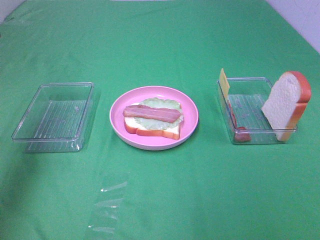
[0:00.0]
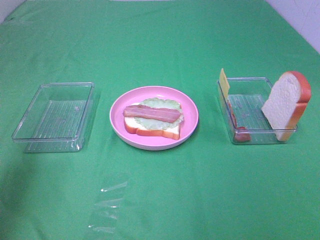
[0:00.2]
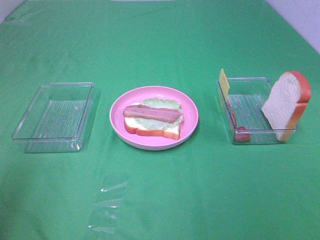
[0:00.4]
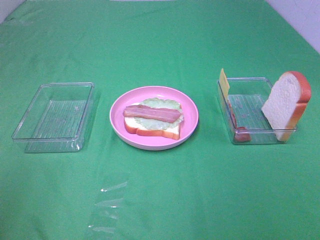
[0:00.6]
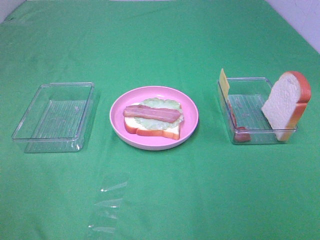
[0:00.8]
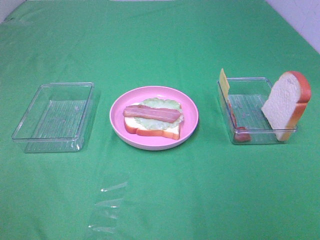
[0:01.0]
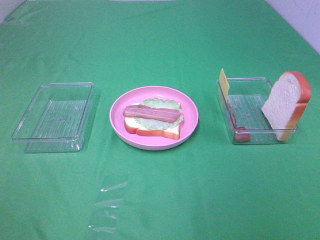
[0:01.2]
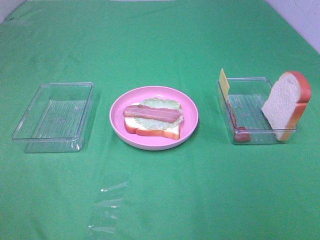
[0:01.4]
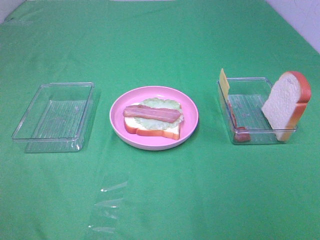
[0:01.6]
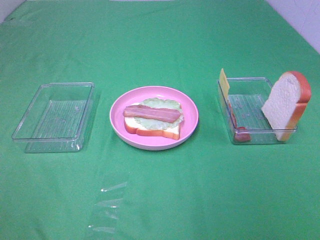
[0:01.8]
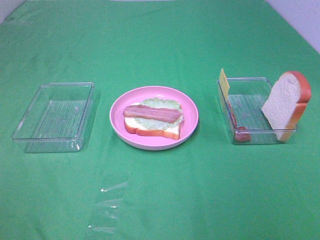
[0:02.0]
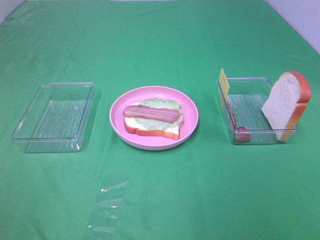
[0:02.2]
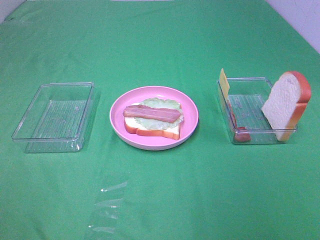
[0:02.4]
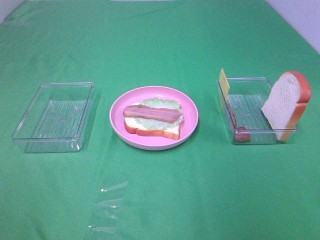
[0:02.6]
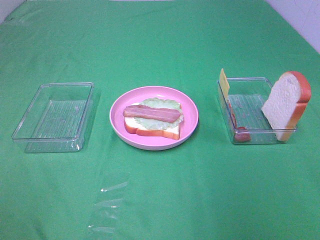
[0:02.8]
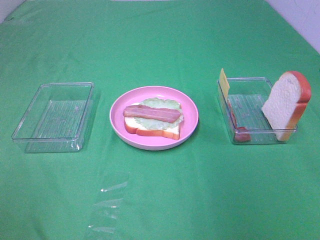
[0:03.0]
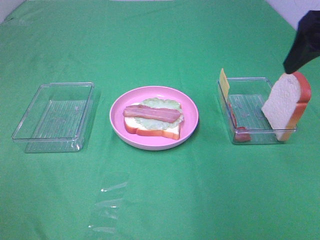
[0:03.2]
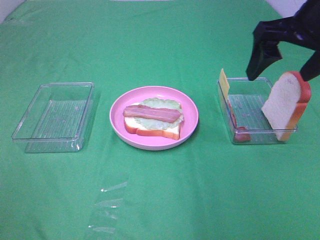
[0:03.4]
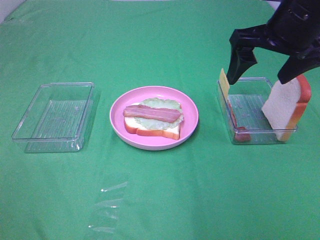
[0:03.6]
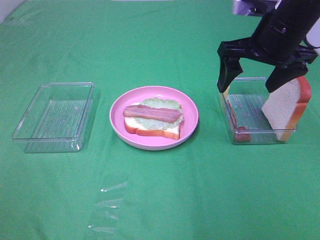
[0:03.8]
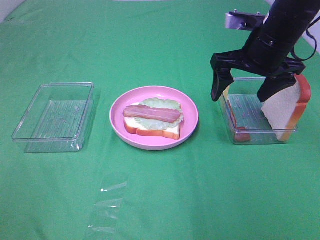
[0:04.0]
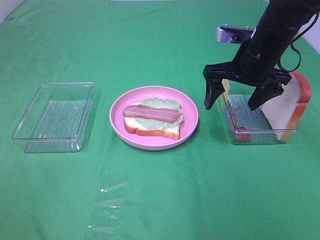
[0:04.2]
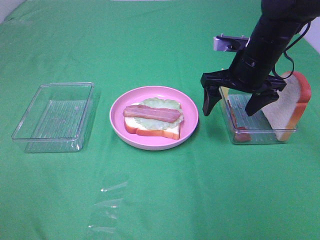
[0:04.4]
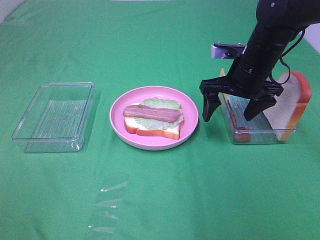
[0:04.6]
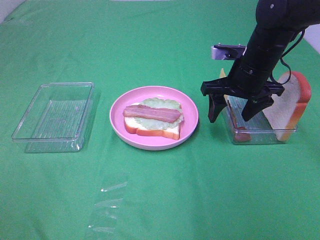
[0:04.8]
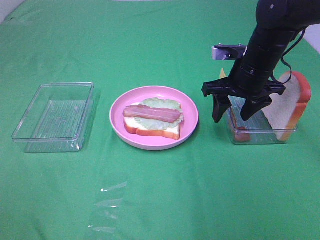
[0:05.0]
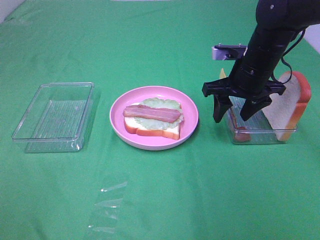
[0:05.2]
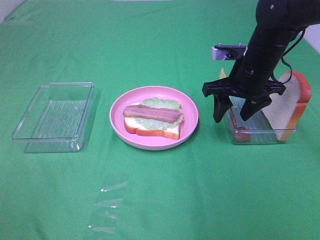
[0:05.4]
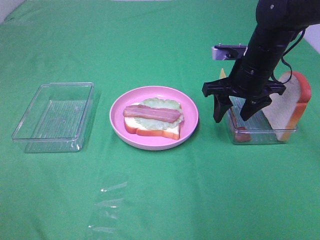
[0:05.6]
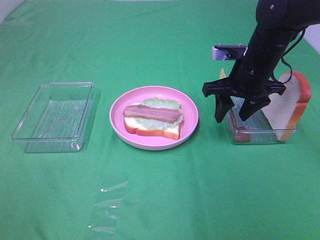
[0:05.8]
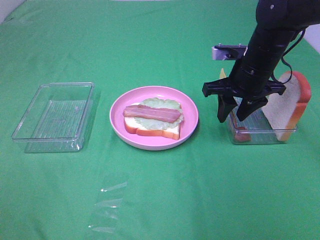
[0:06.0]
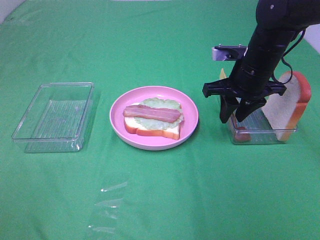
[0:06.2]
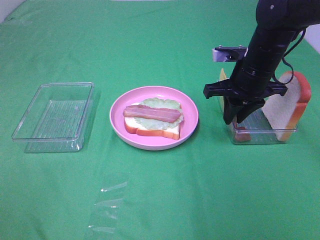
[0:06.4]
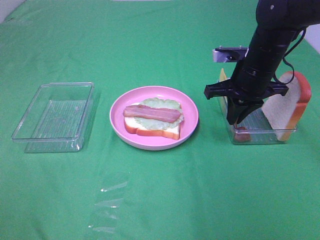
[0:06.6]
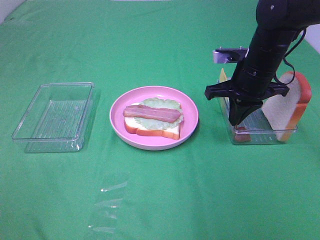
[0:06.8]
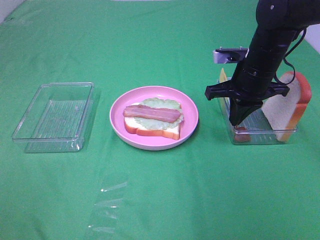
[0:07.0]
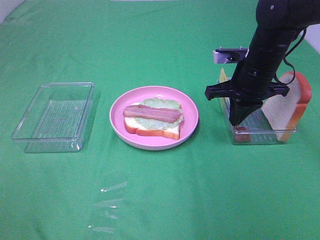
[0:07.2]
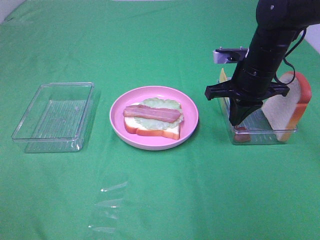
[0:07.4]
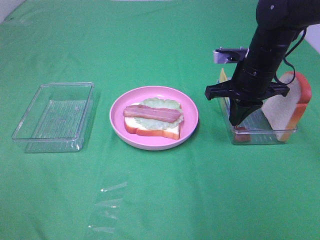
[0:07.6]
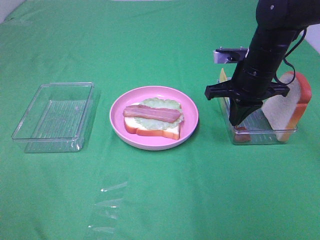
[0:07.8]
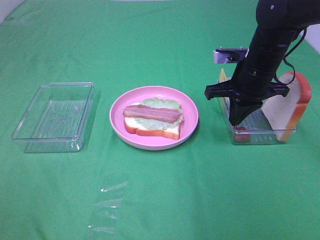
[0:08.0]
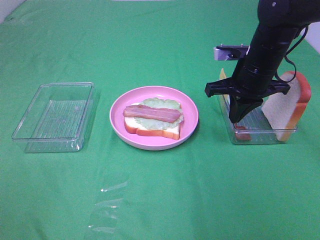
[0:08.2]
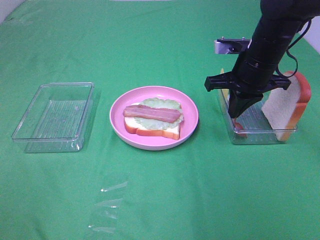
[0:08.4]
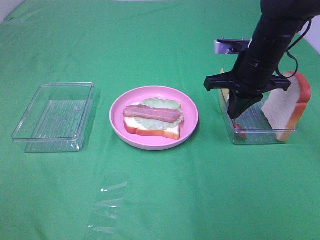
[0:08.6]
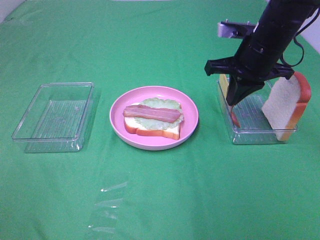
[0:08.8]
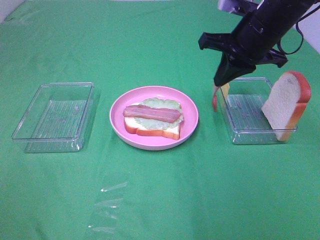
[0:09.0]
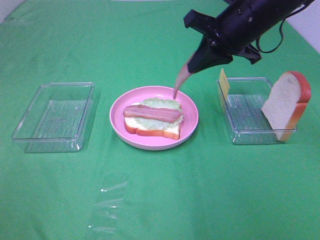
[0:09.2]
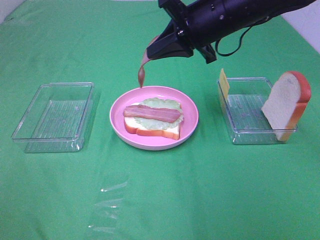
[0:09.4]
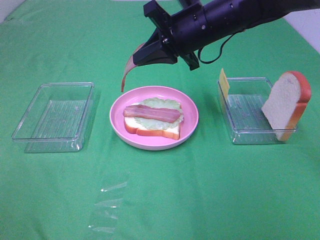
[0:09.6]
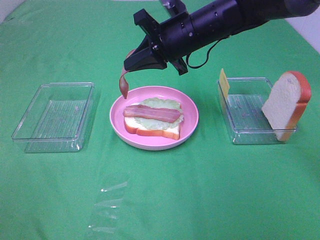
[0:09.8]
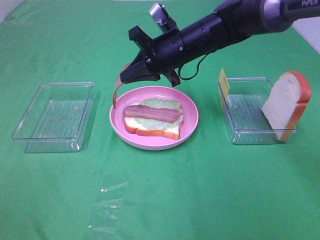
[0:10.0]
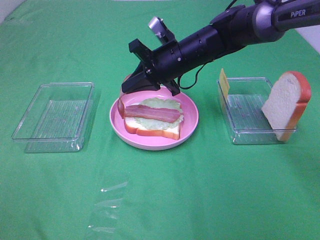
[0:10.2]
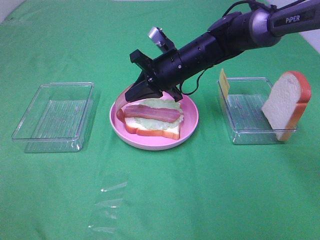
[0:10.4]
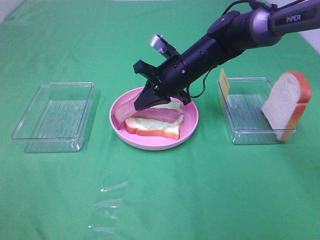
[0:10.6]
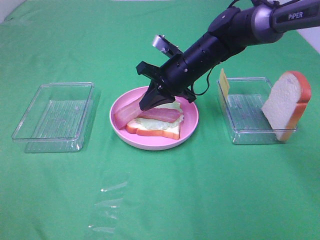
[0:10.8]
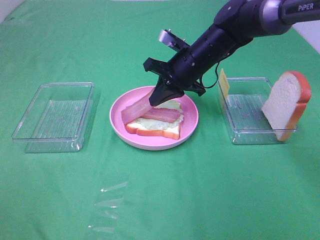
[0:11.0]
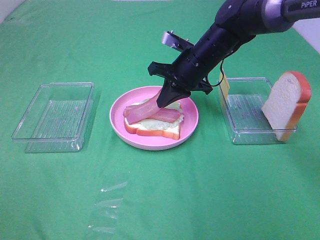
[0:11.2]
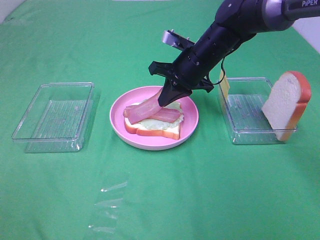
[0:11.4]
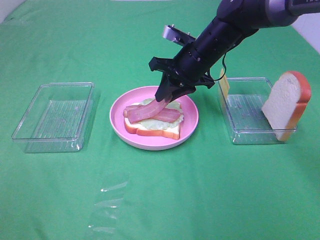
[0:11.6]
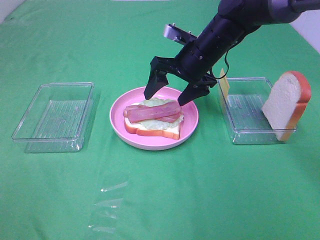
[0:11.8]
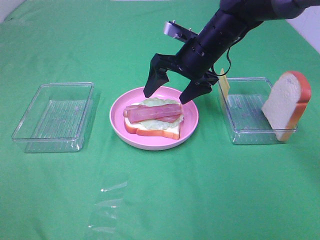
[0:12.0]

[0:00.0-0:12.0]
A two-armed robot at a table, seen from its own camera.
Task of the whole recording: Make sandwiches.
Step, 0:00.0 to 0:07.0: Right hand:grab the bacon.
Step, 0:07.2 to 0:12.0: Right hand:place bacon on bacon.
0:00.0 to 0:01.6: The left gripper travels backward by some 30 cm.
0:03.0 to 0:04.4: The right gripper travels downward, forward and to the left by some 25 cm.
0:04.4 to 0:06.0: The right gripper closes.
0:06.0 to 0:07.6: The right gripper closes up.
0:07.6 to 0:09.0: The right gripper travels upward by about 10 cm.
0:09.0 to 0:10.4: The right gripper moves downward, to the left and forward, roughly 15 cm.
0:10.4 to 0:12.0: The right gripper moves roughly 5 cm, and opens up.

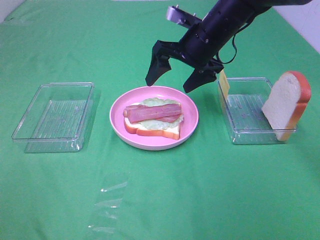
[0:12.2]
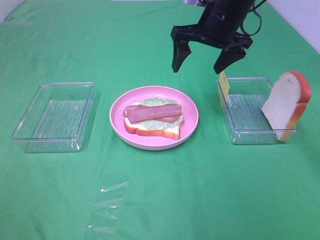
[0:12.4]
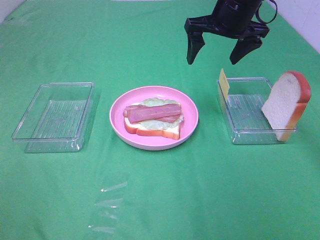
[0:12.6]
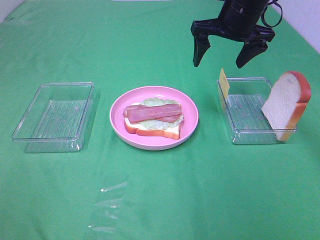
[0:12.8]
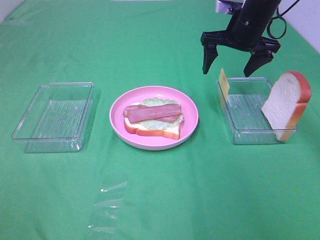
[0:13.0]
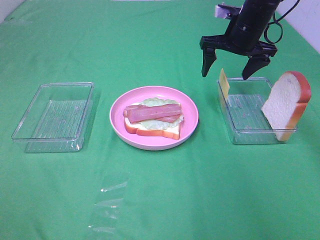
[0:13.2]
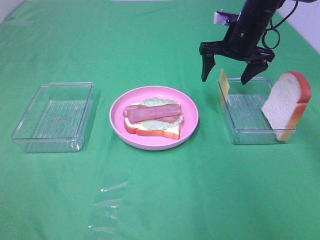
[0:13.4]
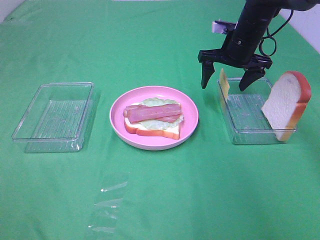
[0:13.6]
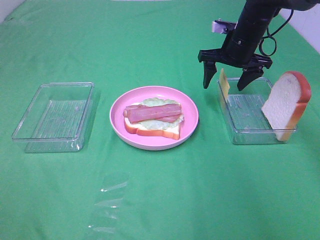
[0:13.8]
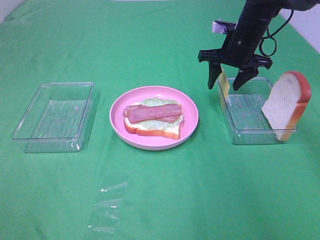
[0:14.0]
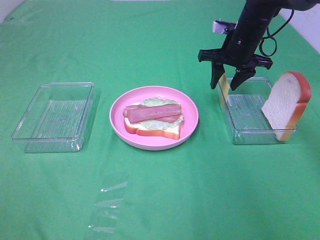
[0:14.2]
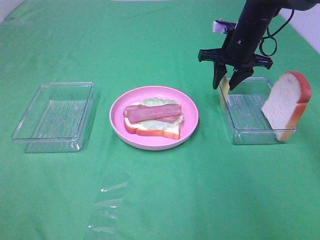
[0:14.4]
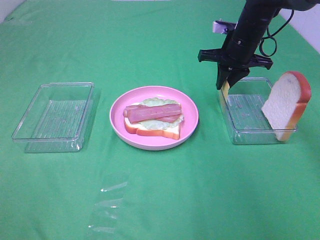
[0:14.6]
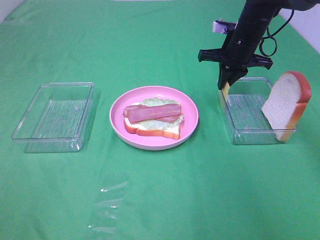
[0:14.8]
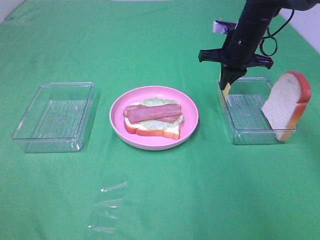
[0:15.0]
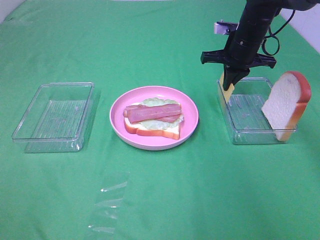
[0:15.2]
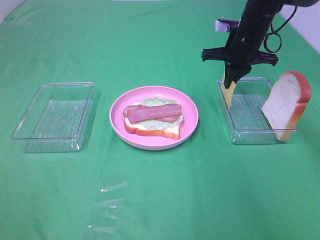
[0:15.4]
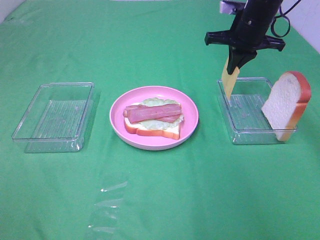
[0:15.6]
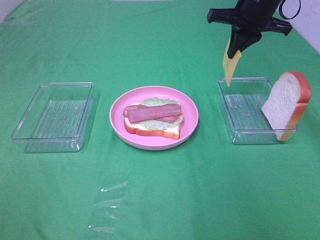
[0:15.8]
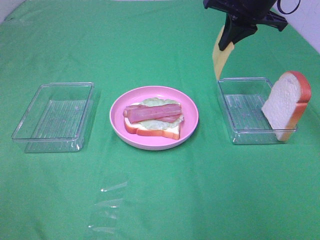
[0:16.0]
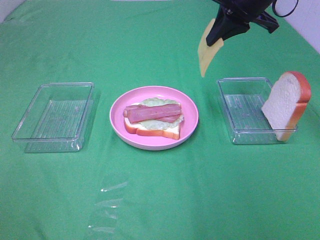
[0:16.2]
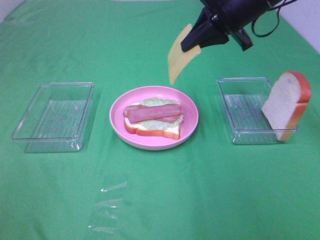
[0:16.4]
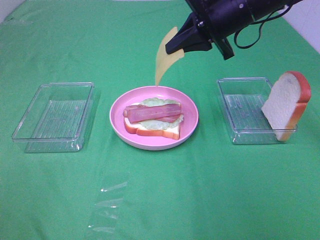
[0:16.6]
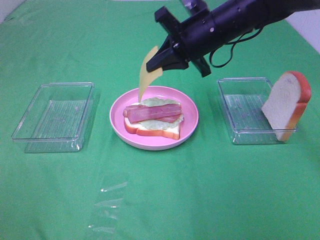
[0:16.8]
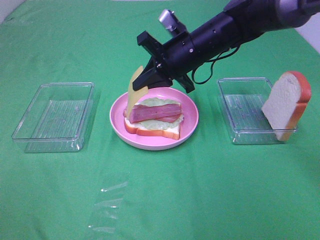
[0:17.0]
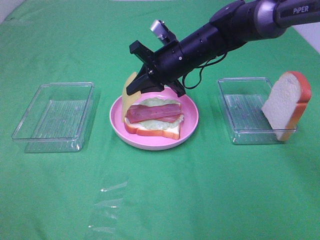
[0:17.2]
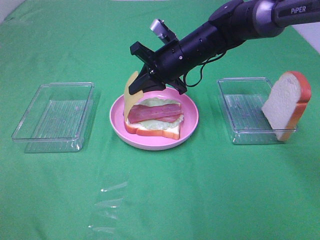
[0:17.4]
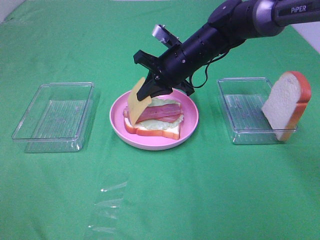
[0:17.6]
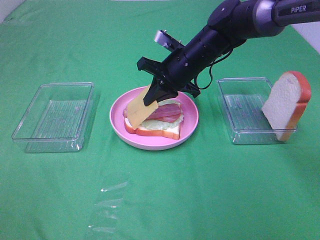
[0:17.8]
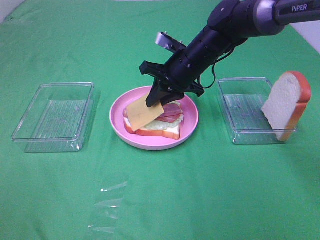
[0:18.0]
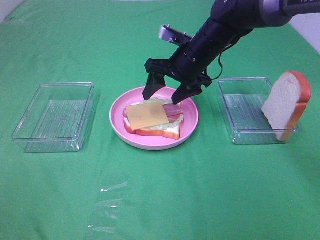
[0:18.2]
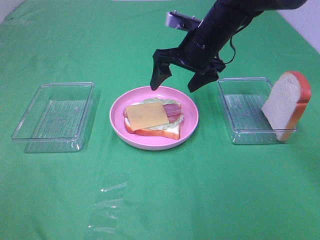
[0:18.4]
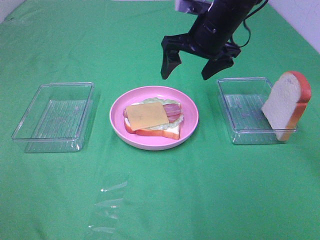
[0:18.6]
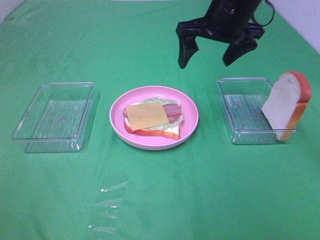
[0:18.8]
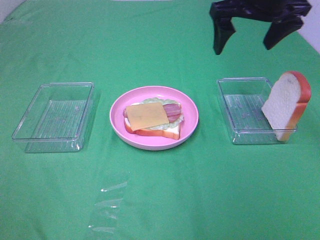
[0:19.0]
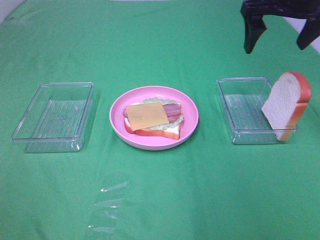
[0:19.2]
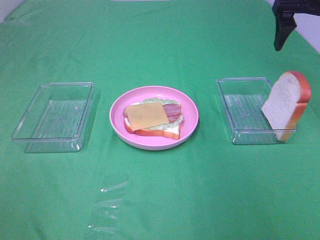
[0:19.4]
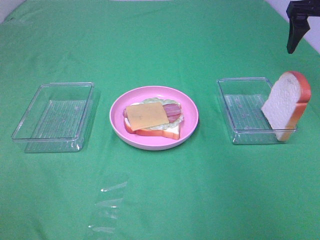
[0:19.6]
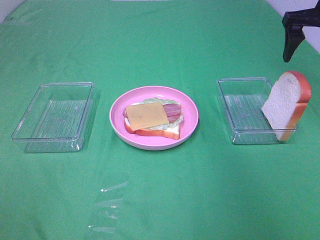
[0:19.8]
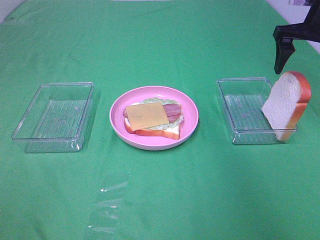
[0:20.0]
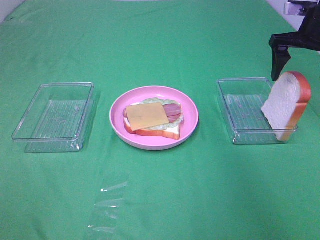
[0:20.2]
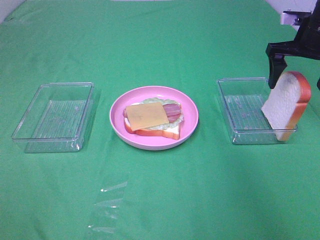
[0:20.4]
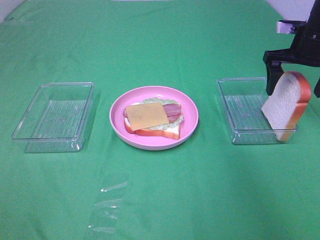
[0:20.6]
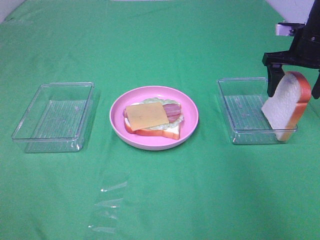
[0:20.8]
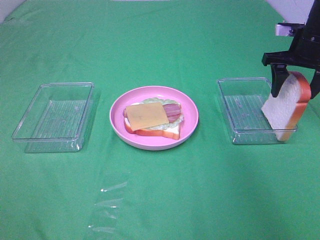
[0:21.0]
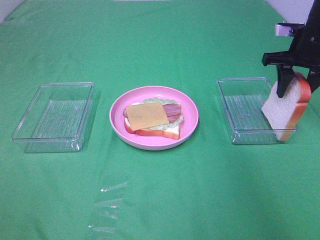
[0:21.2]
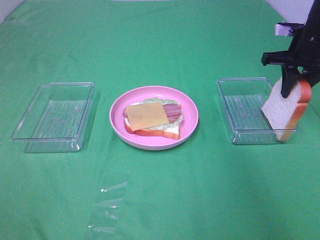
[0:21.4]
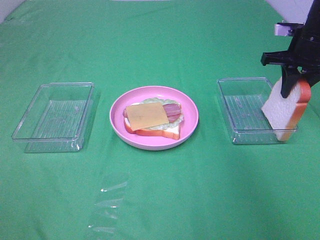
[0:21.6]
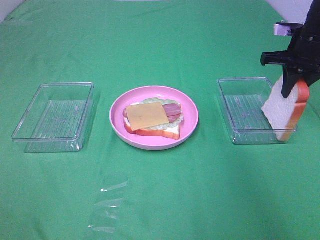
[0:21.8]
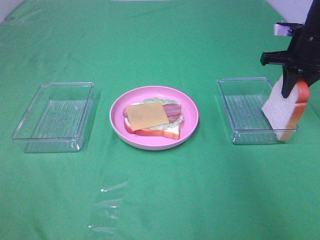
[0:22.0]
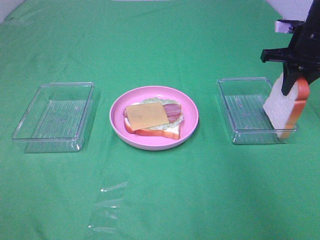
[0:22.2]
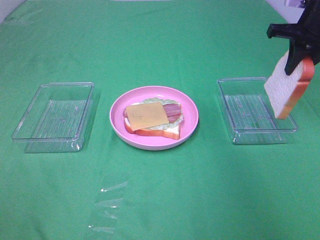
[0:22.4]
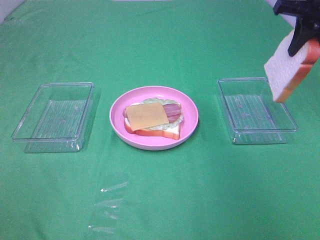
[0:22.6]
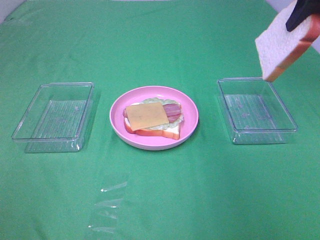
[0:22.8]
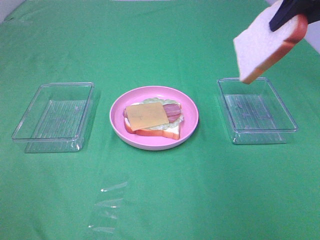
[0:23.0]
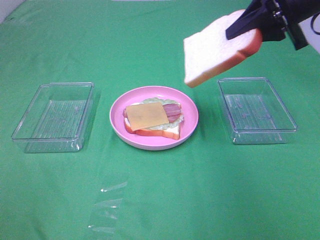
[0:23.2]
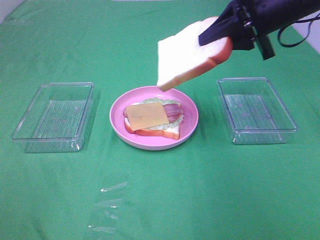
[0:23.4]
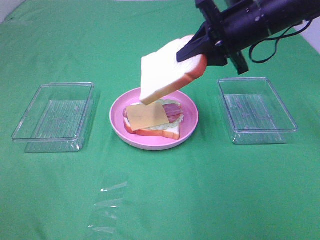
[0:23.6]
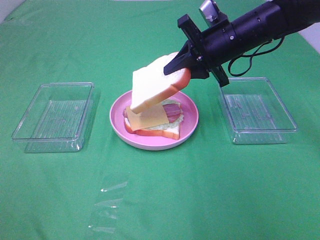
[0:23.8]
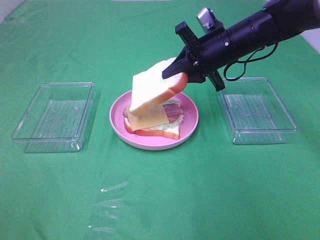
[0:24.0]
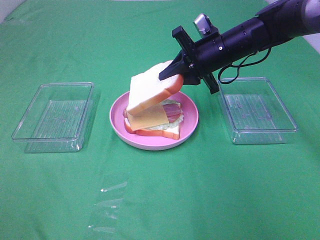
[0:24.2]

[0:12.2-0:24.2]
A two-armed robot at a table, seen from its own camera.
Task of the whole recording: Make sandwiches.
Step, 0:12.2 to 0:14.8: Right hand:grab the cheese slice.
Step, 0:15.0 to 0:18.2: Right hand:place the cheese slice on top of the bacon.
Step, 0:18.4 to 0:21.6: Right hand:grab the bread slice.
0:12.2 to 0:13.8: The right gripper shifts some 10 cm to the right and forward.
0:13.8 to 0:15.2: The right gripper closes up.
0:15.2 to 0:16.6: The right gripper travels upward, backward and to the left by roughly 15 cm.
0:16.6 to 0:18.2: The right gripper heads downward, covering some 10 cm, and opens.
0:18.2 to 0:19.8: The right gripper travels to the right and upward by roughly 25 cm.
0:19.8 to 0:21.2: The right gripper is displaced downward by some 10 cm, and closes up.
0:21.2 to 0:22.6: The right gripper moves upward, approximately 10 cm.
0:22.6 to 0:24.2: The right gripper is displaced to the left and downward by about 20 cm.
